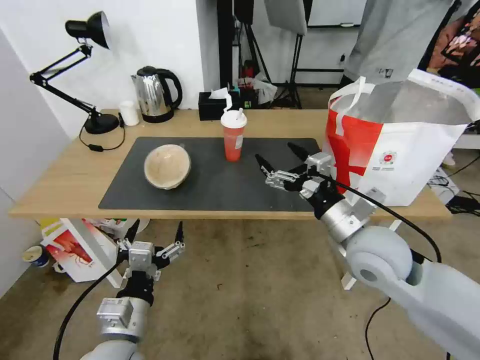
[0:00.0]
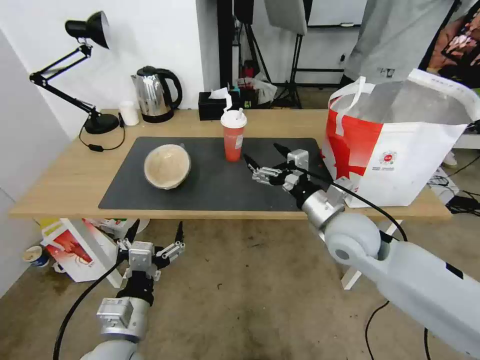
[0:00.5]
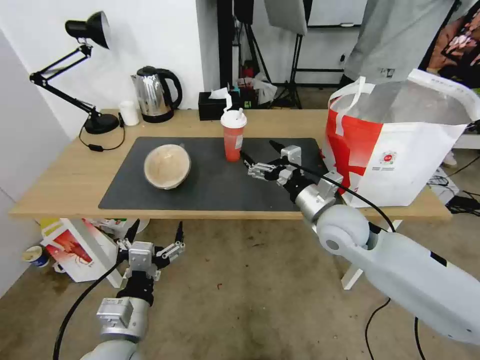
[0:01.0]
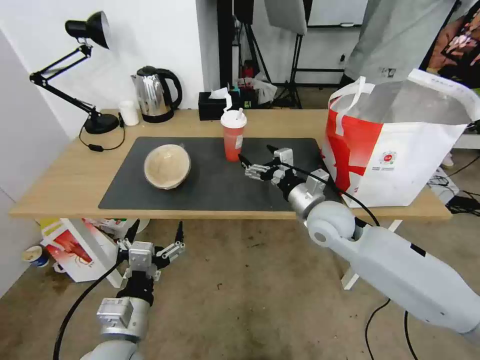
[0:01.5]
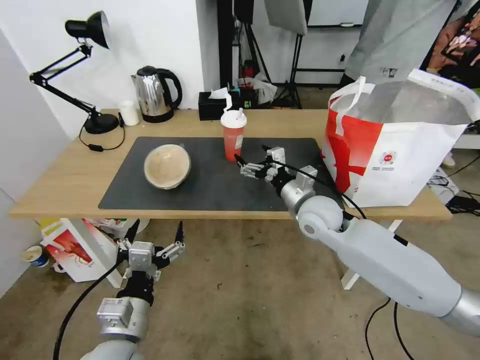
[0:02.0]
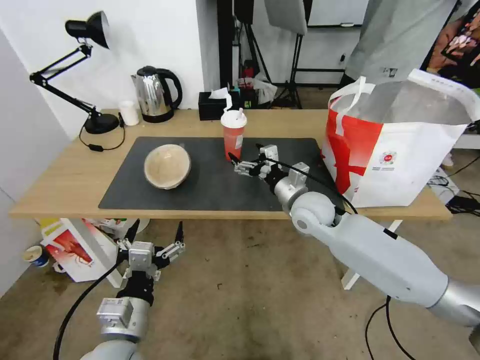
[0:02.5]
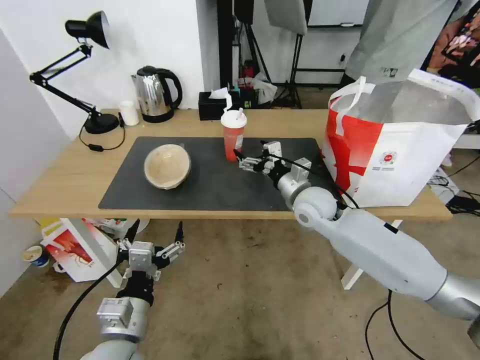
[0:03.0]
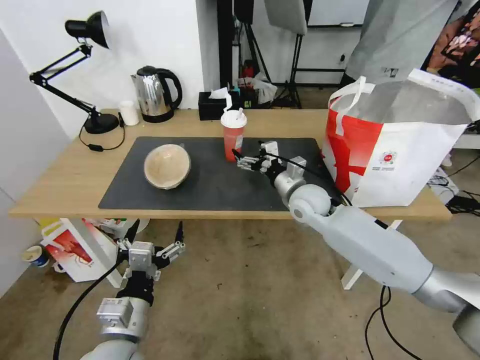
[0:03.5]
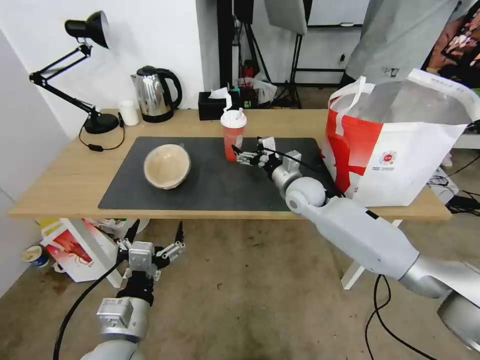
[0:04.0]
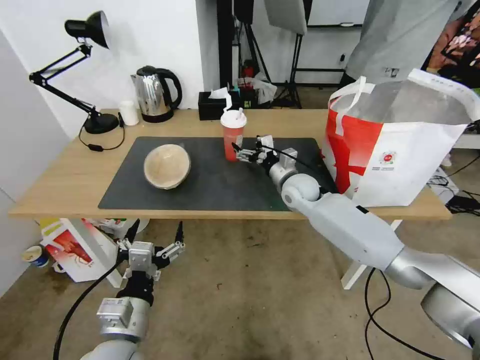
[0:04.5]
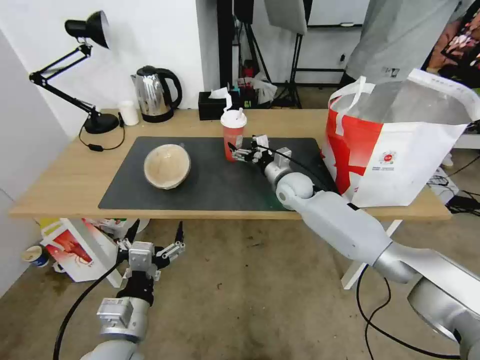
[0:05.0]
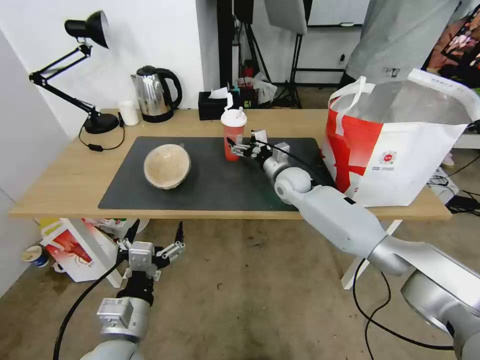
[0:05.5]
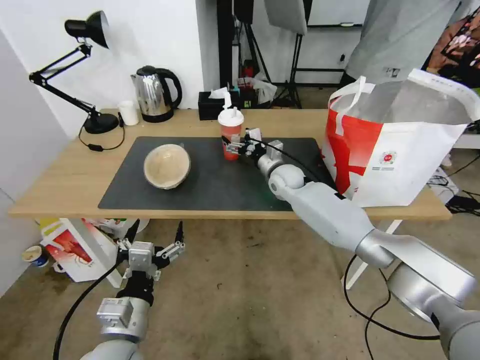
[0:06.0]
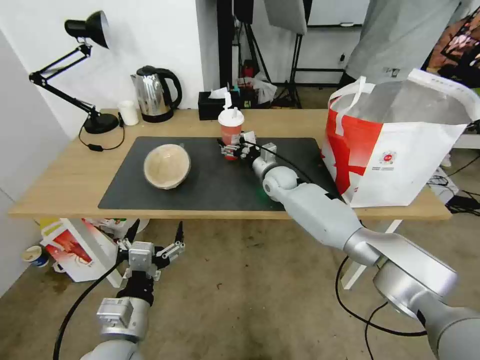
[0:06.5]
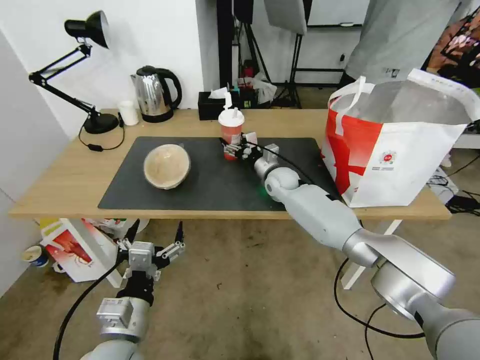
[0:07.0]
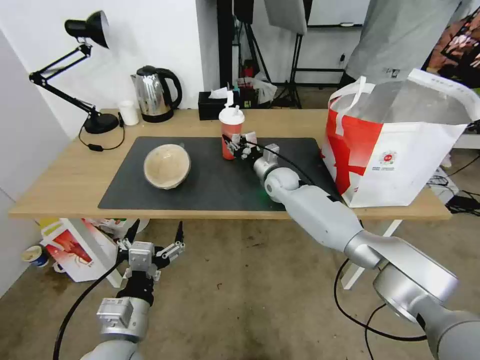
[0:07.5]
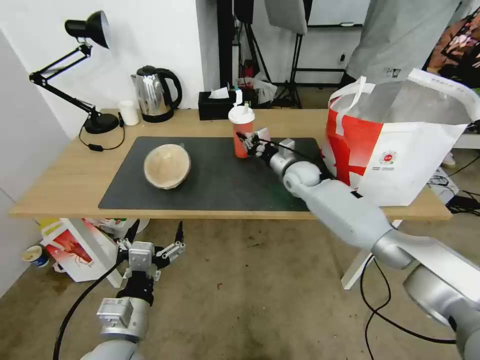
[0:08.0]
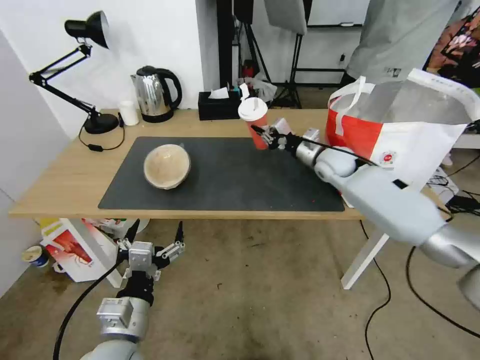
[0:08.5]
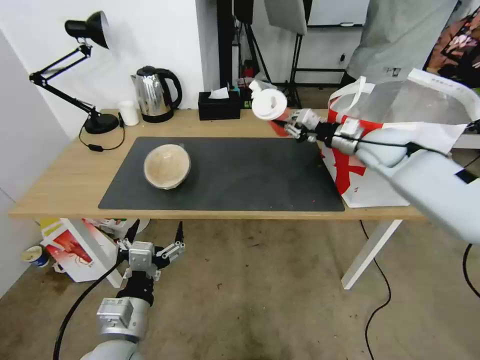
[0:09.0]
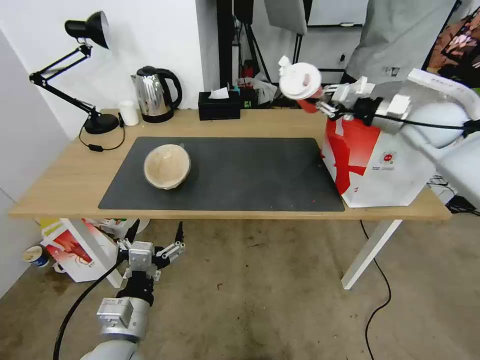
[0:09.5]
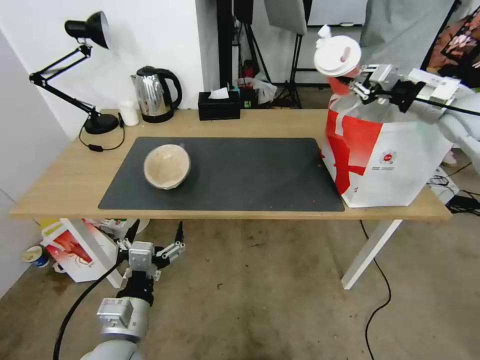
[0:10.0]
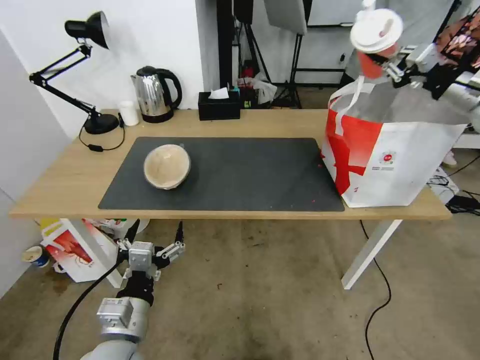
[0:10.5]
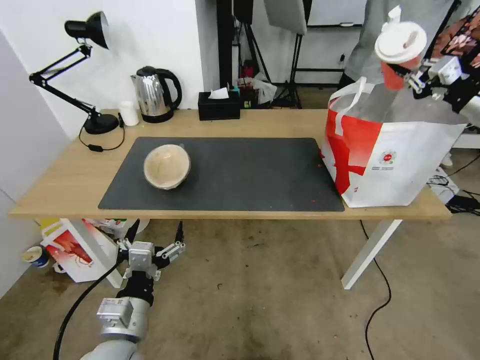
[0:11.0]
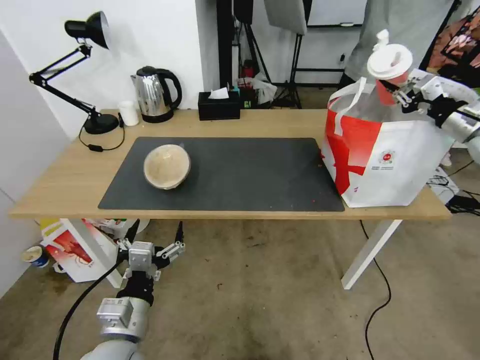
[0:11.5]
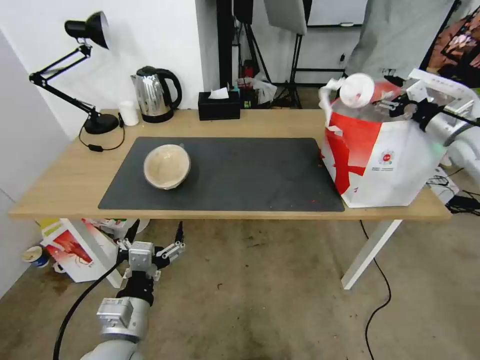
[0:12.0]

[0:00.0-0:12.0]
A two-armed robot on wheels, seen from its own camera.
Task of the whole recording: Pick up the trash from the table and place it into the takeout bag.
0:00.0 to 0:02.0: The right gripper shifts roughly 15 cm forward, downward and to the left.
0:02.0 to 0:04.0: The right gripper travels forward by about 10 cm.
0:04.0 to 0:06.0: The right gripper moves forward, some 5 cm.
0:06.0 to 0:08.0: The right gripper shifts approximately 5 cm to the right, and closes up.
0:08.0 to 0:10.0: The right gripper travels to the right and upward by roughly 35 cm.
0:10.0 to 0:12.0: The right gripper moves downward and to the right, roughly 10 cm, and opens its fingers.

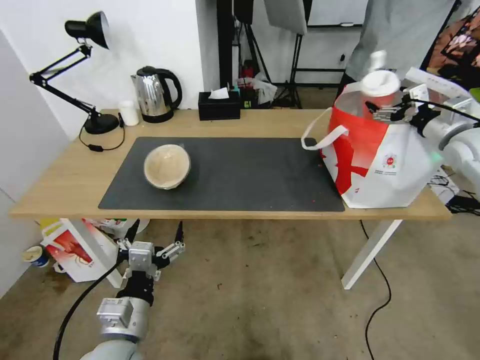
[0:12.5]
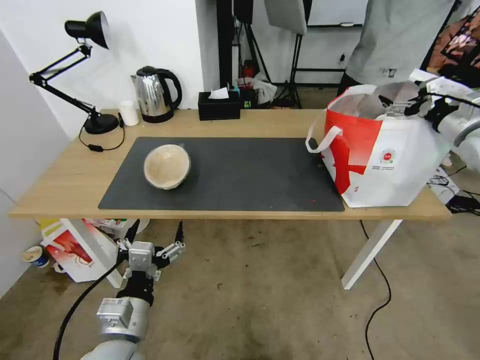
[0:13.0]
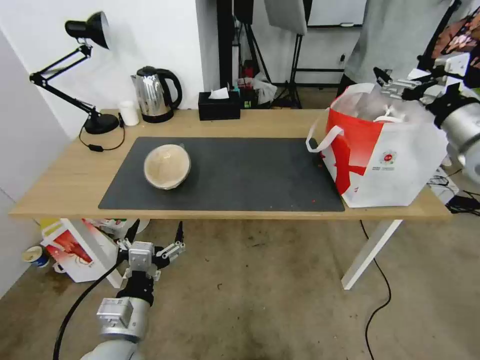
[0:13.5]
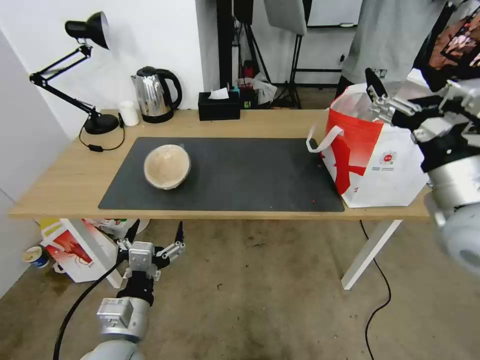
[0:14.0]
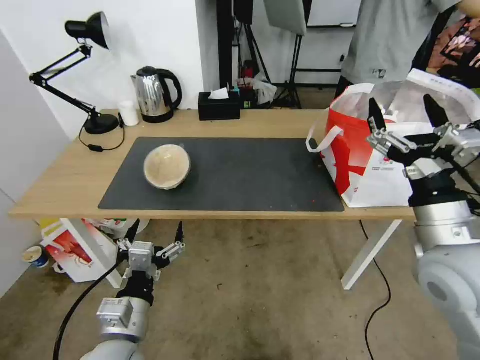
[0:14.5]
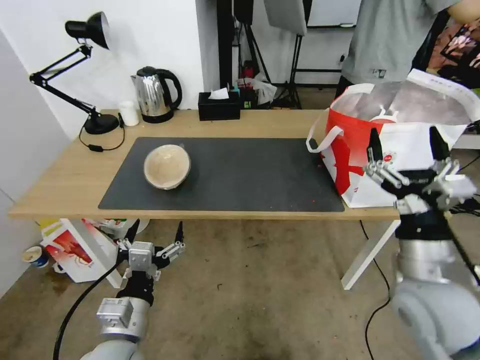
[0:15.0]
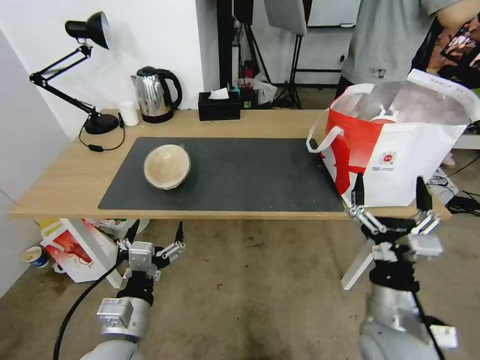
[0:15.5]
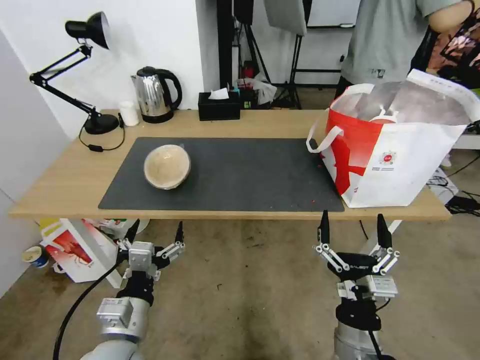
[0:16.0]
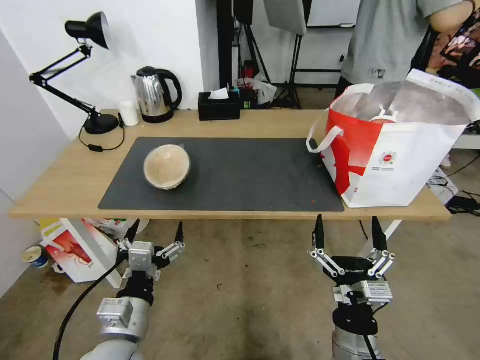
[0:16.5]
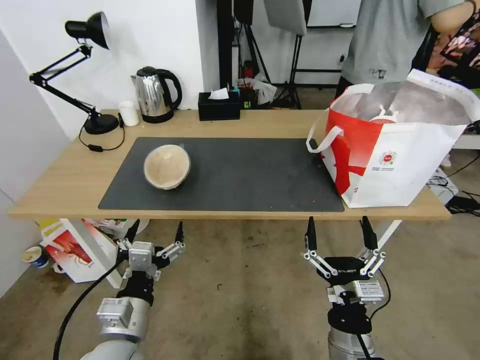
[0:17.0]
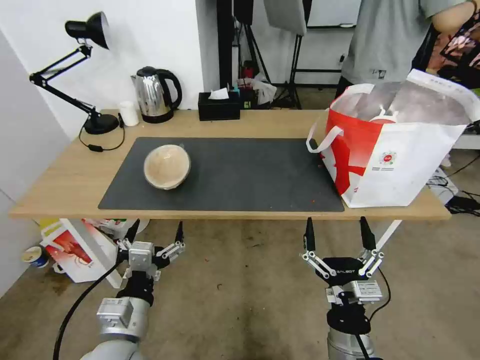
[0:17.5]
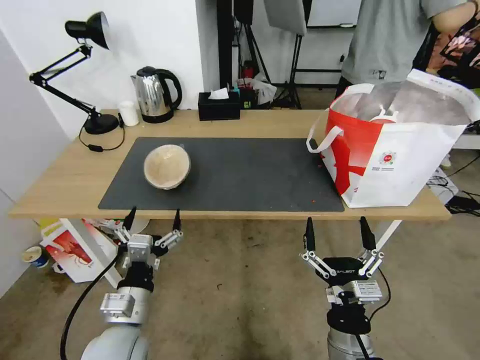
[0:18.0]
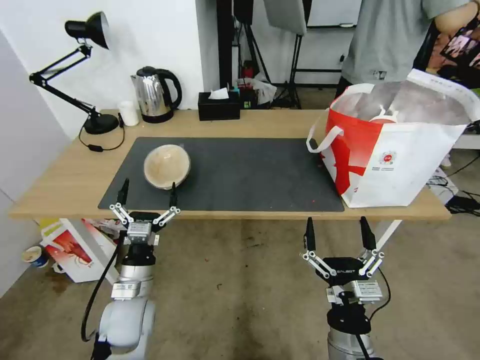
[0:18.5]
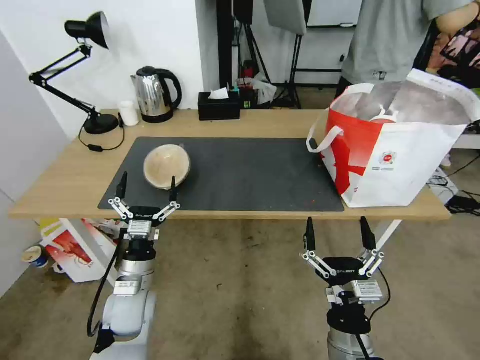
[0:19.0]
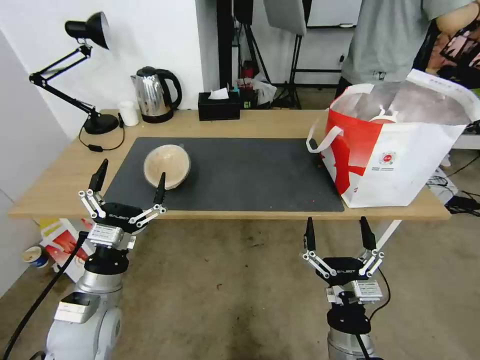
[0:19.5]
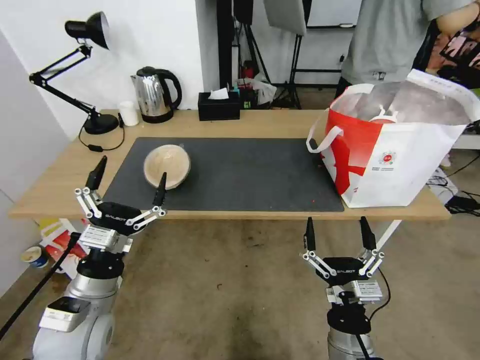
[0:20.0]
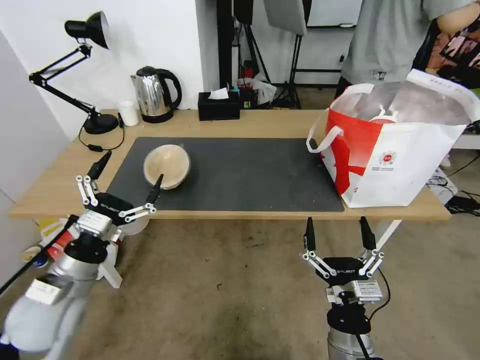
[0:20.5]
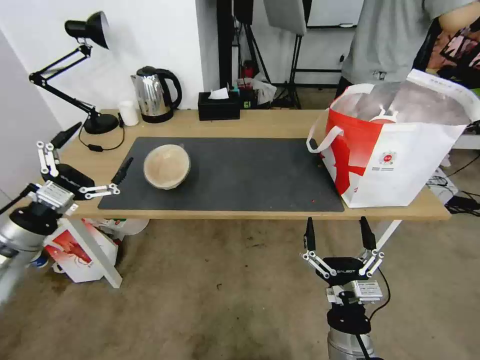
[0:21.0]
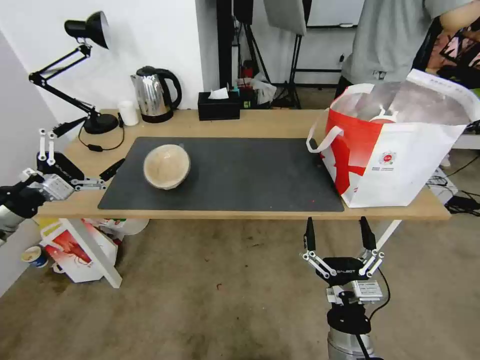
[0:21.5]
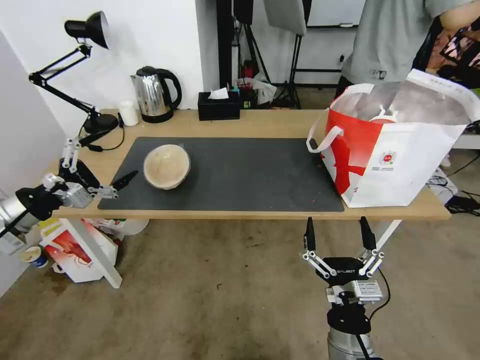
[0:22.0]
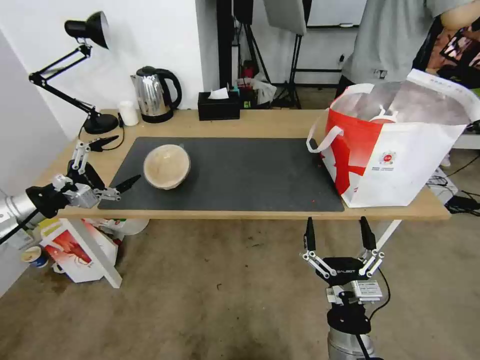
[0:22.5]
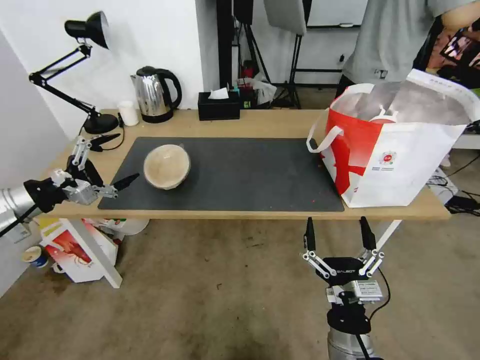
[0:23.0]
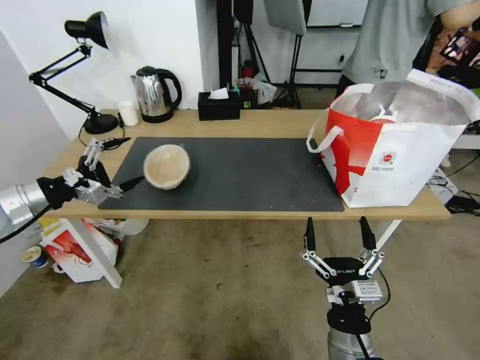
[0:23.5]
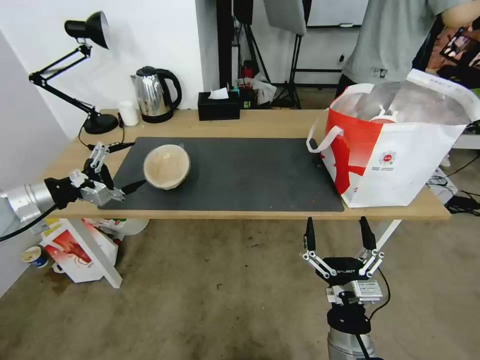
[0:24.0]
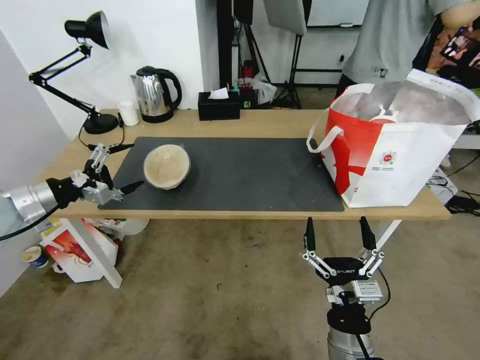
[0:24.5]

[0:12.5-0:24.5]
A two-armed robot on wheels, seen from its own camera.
Task of the whole recording: Pick up the trash from the table and place it into the takeout bag.
0:12.5 to 0:14.5: The right gripper travels backward and to the left by some 30 cm.
0:14.5 to 0:16.5: The right gripper goes about 25 cm downward, to the left and backward.
0:16.5 to 0:18.5: The left gripper shifts roughly 10 cm forward and downward.
0:18.5 to 0:20.5: The left gripper goes roughly 15 cm to the left and upward.
0:20.5 to 0:22.5: The left gripper goes roughly 20 cm to the left, upward and forward.
0:22.5 to 0:24.5: The grippers stay close to where they were, moving slightly.

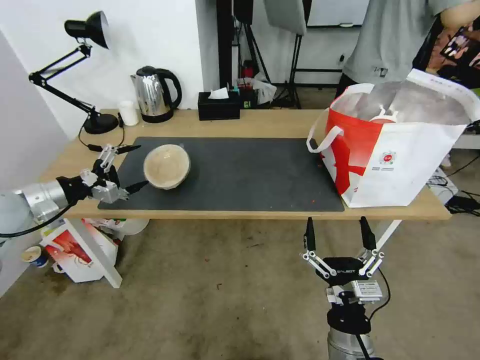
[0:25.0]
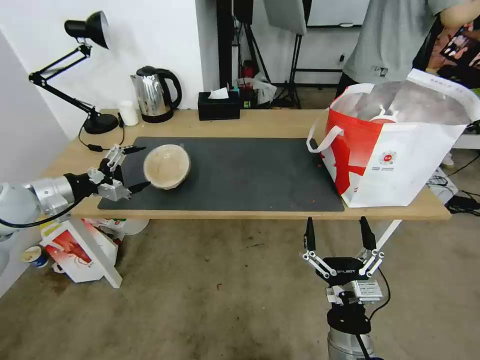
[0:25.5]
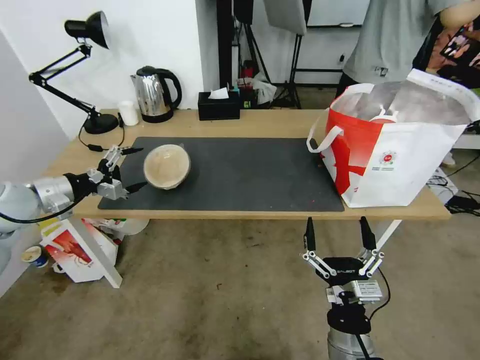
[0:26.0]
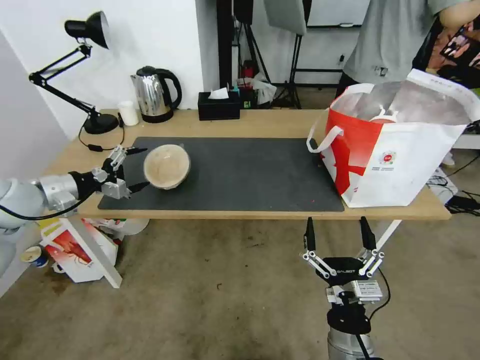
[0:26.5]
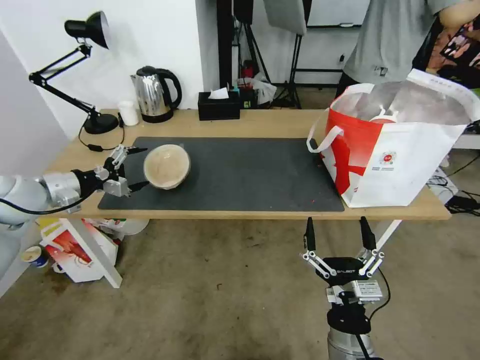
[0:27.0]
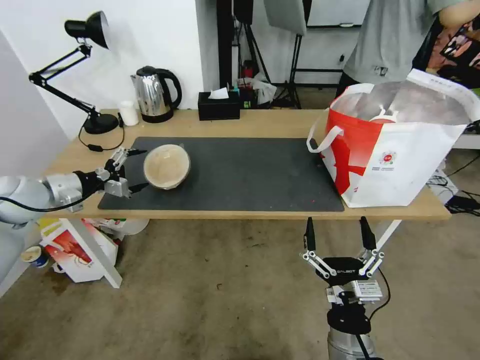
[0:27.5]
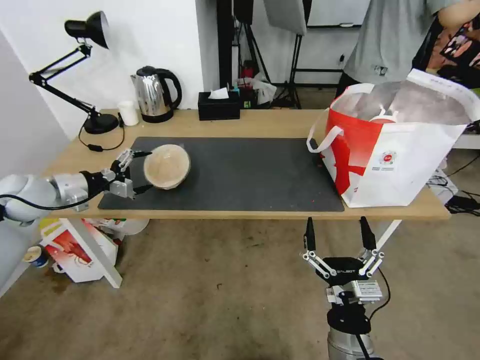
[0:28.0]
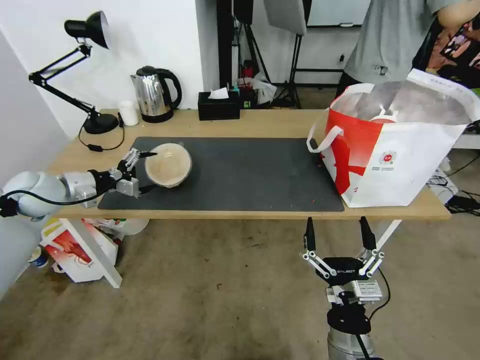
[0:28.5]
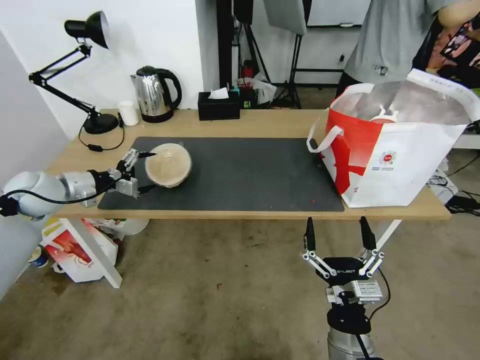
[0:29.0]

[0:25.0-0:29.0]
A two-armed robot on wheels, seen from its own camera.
Task of the whole recording: Pick up the trash from the table and place it into the takeout bag.
0:25.0 to 0:27.0: There are only small adjustments of the grippers.
0:27.0 to 0:29.0: There are only small adjustments of the grippers.
